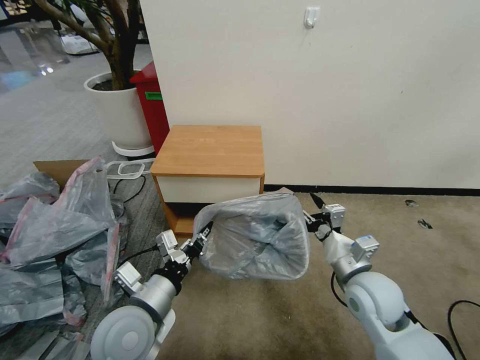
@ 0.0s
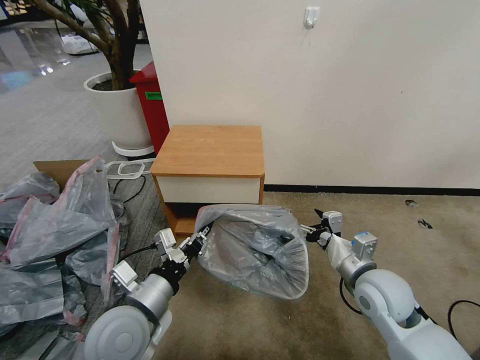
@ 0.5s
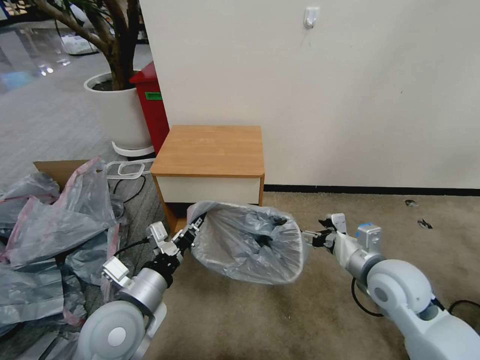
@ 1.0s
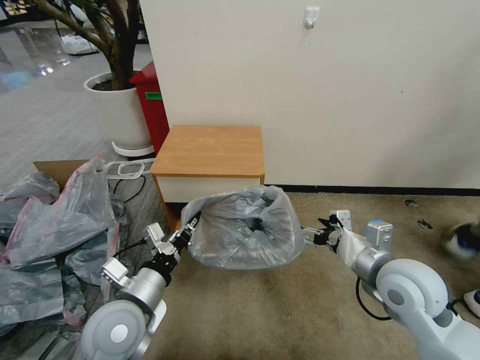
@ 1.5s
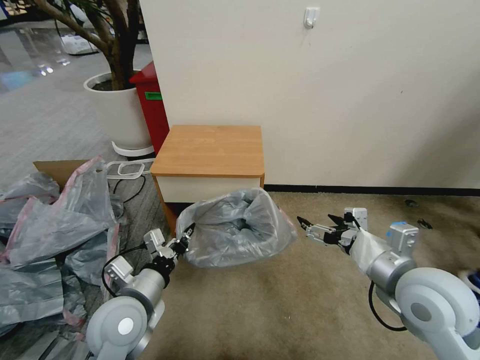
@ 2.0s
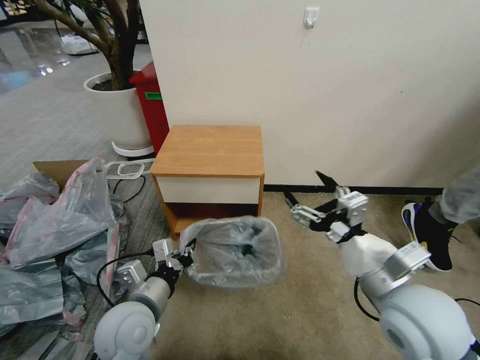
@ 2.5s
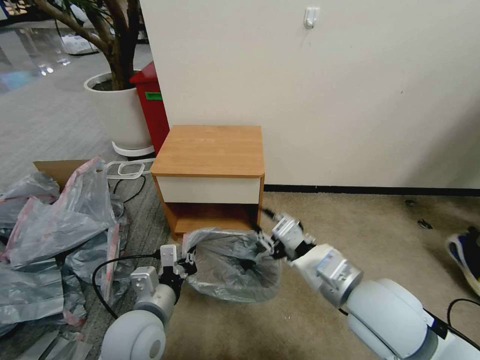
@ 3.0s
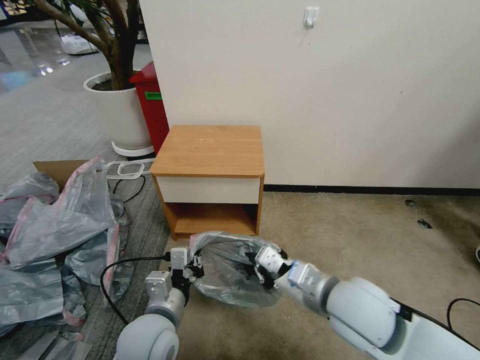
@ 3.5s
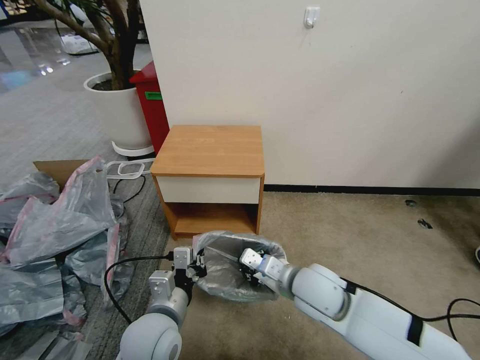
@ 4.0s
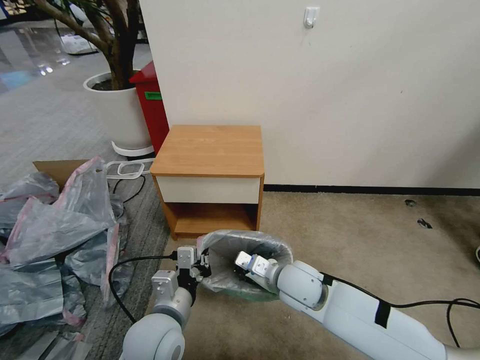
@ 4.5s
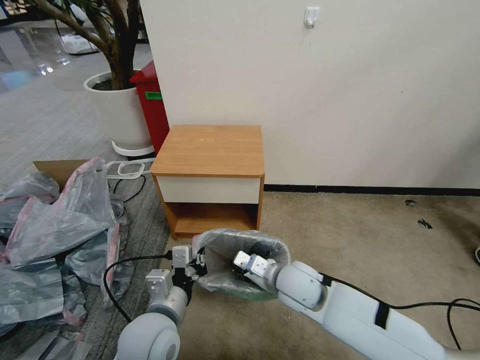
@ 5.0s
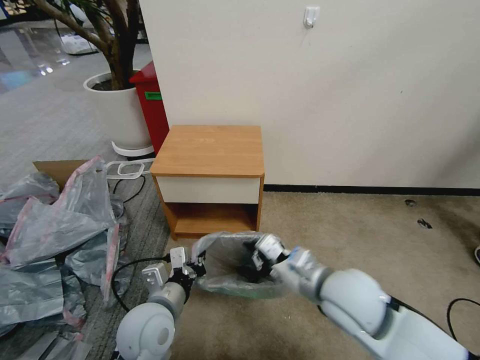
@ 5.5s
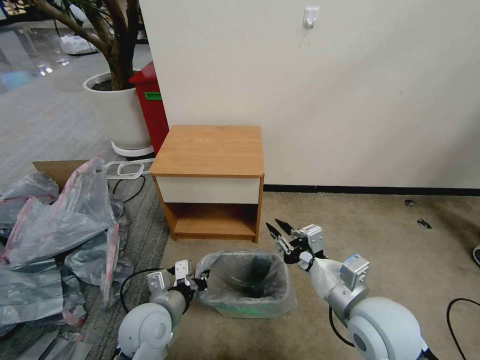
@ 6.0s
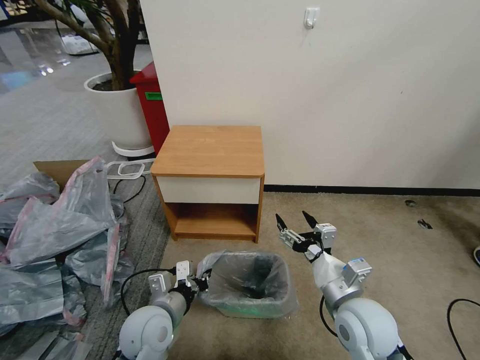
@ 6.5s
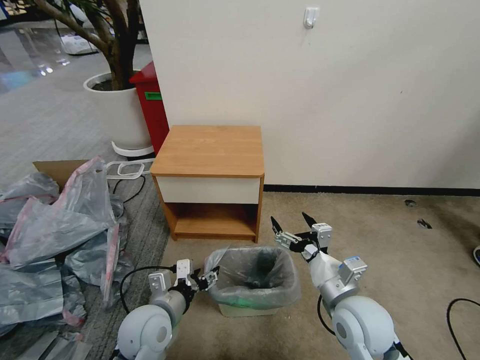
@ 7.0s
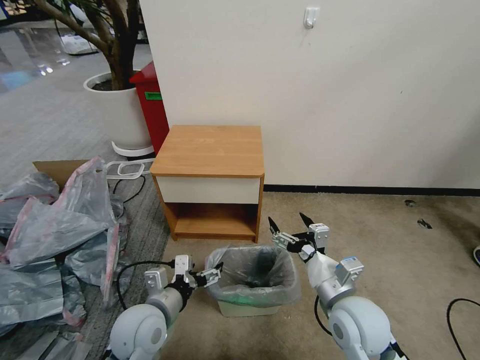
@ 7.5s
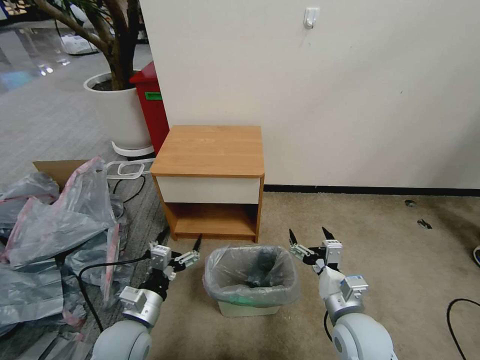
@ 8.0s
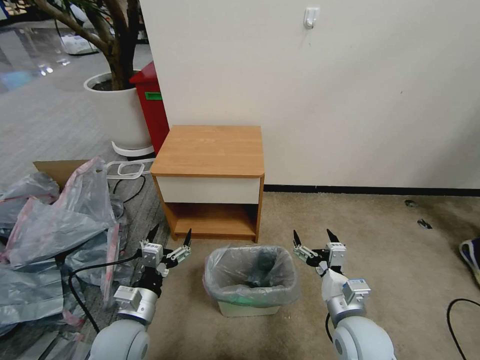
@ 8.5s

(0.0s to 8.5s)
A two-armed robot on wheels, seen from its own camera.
Task of the whole recording: Pick up the garbage bag from the table and place it over the trash can.
0.0s - 2.0s: The right gripper is displaced upward by roughly 10 cm.
2.0s - 4.0s: The right gripper heads to the left and downward, covering approximately 20 cm, and closes its fingers; the left gripper travels to the right by approximately 5 cm.
4.0s - 6.5s: The left gripper changes place by approximately 5 cm. Meanwhile the right gripper travels to the right and backward by approximately 10 cm, and opens its fingers.
6.5s - 8.5s: The right gripper moves downward, roughly 5 cm; the left gripper ends up about 5 cm from where it was, and opens up.

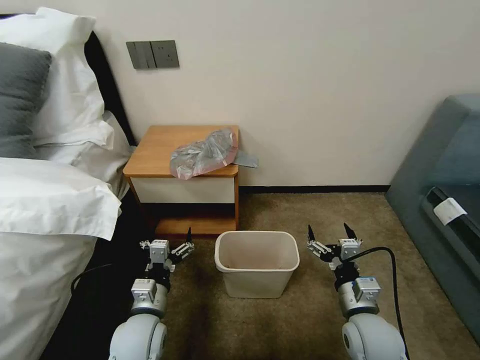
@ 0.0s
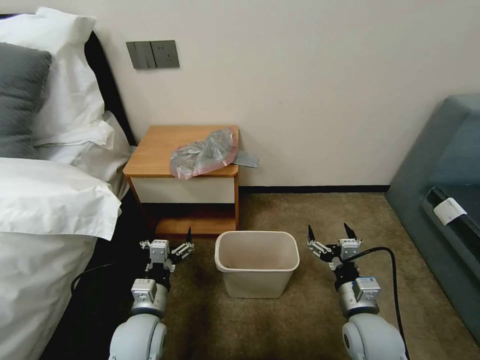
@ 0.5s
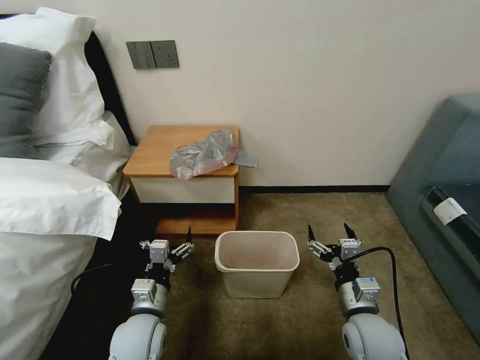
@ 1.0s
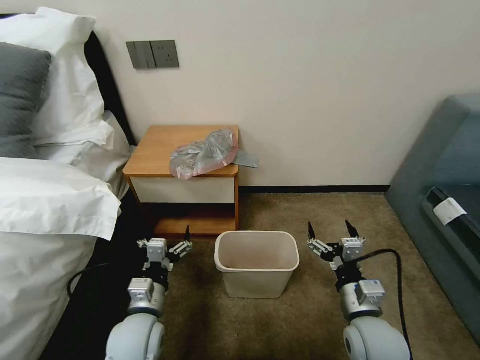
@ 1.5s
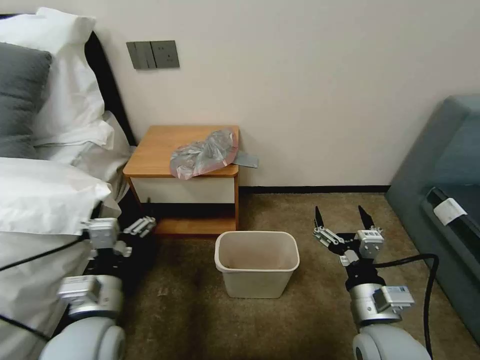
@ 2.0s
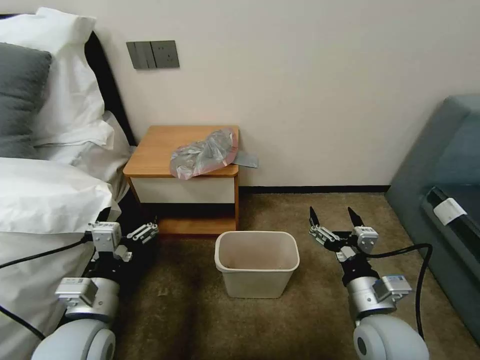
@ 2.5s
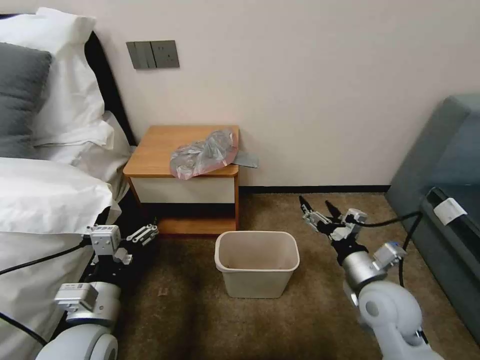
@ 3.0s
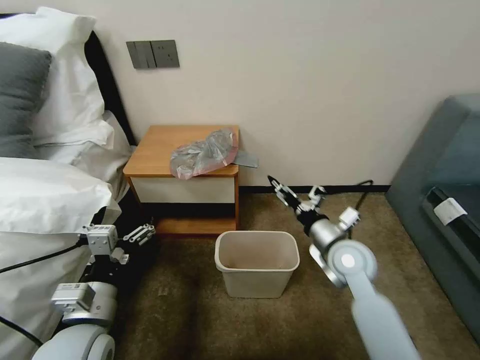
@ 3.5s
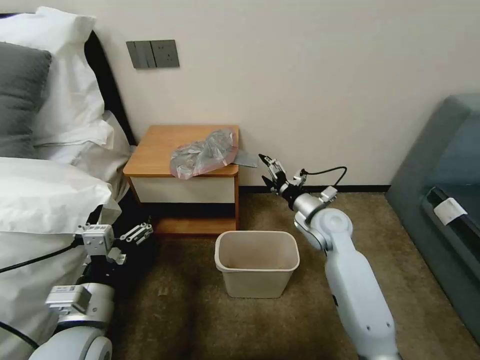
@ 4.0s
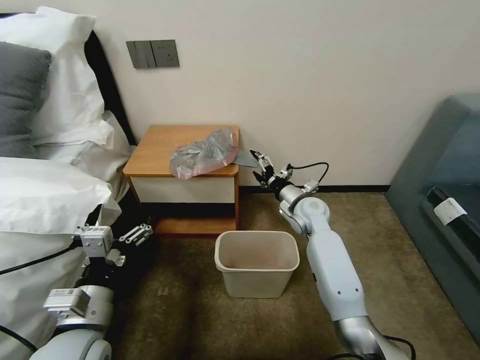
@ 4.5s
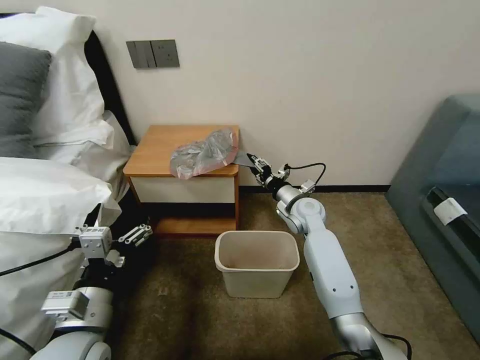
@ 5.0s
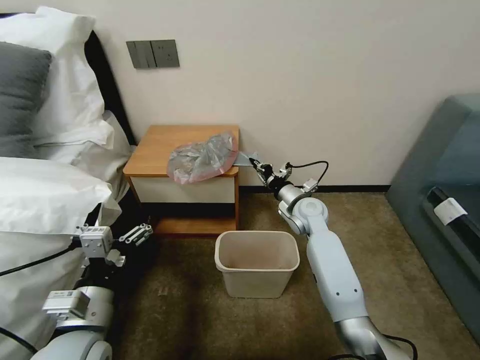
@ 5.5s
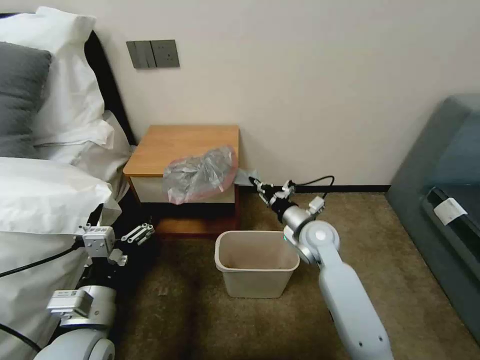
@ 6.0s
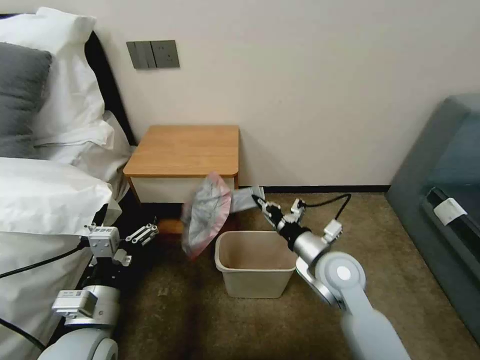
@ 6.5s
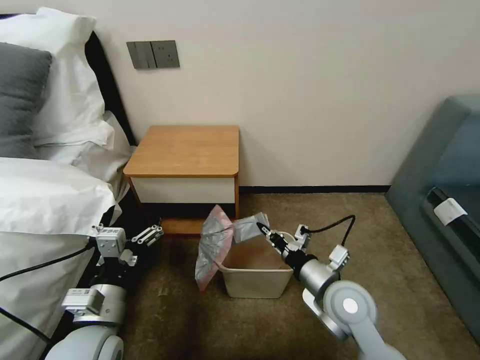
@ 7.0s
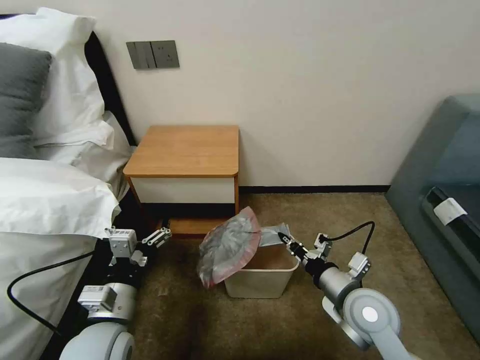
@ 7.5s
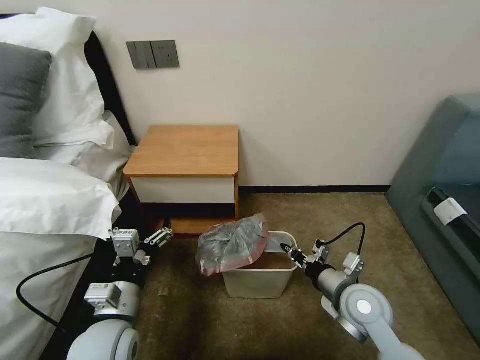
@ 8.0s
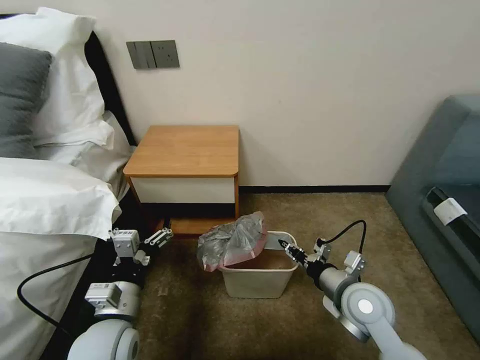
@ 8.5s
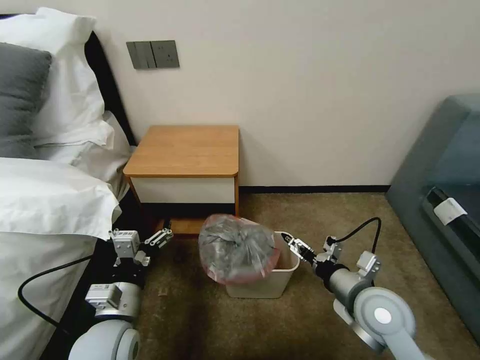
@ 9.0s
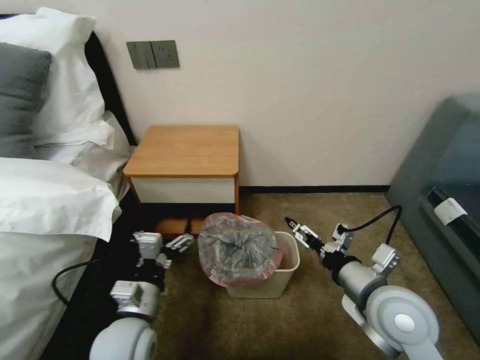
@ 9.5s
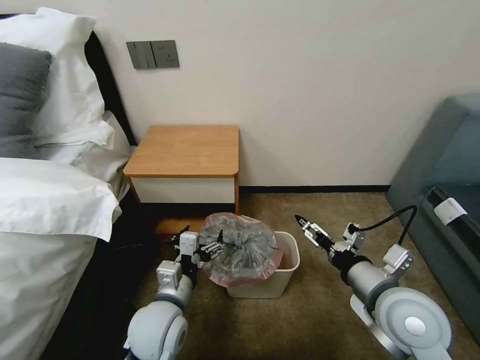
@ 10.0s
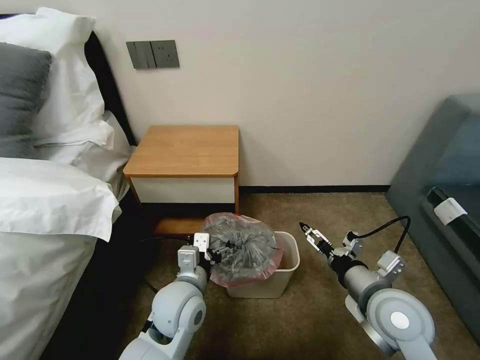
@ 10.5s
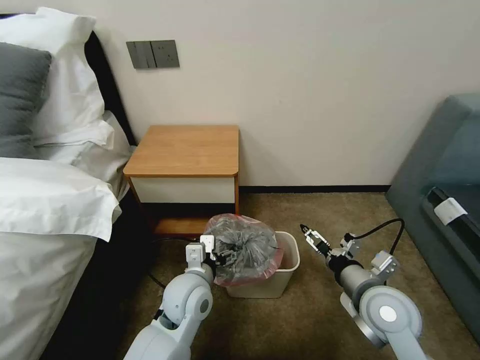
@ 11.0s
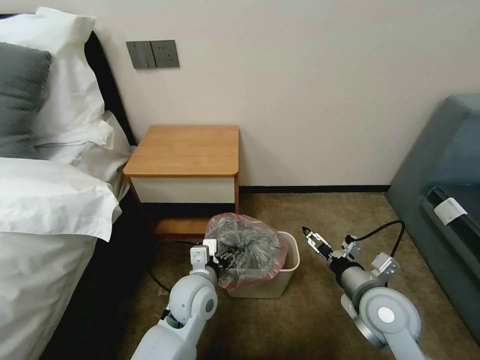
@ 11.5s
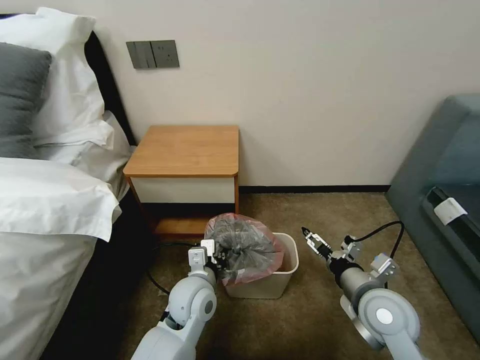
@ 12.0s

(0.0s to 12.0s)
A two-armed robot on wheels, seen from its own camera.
Task of the whole recording: Pick up the garbage bag from the table and place it over the trash can.
2.0s - 4.0s: The right gripper goes roughly 25 cm forward.
4.0s - 6.0s: The right gripper moves roughly 5 cm forward and comes back, and closes.
6.0s - 8.0s: The left gripper changes place by some 5 cm, while the right gripper goes approximately 15 cm backward and to the right.
8.0s - 10.0s: The right gripper travels upward by some 10 cm, and opens its fingers. Meanwhile the left gripper moves to the right, approximately 10 cm.
10.0s - 12.0s: The left gripper moves forward, roughly 5 cm, and closes up. The right gripper shifts approximately 5 cm downward.

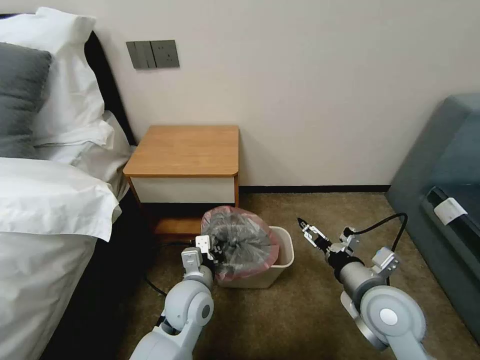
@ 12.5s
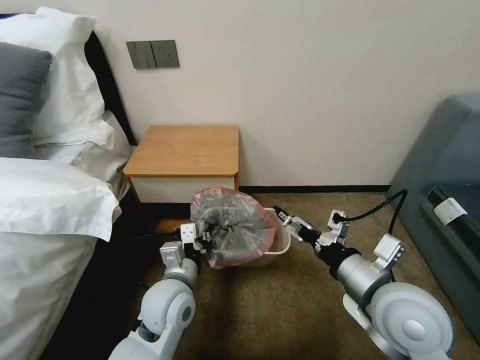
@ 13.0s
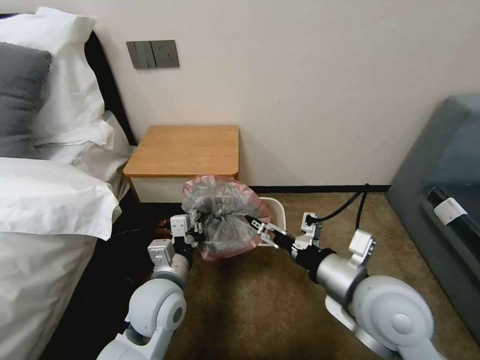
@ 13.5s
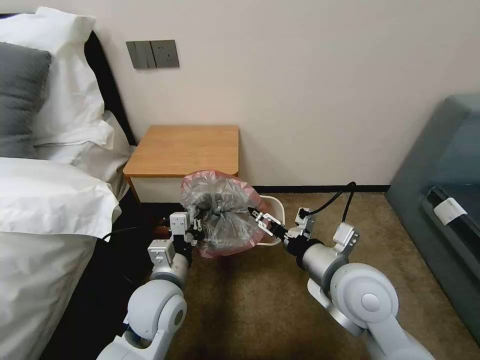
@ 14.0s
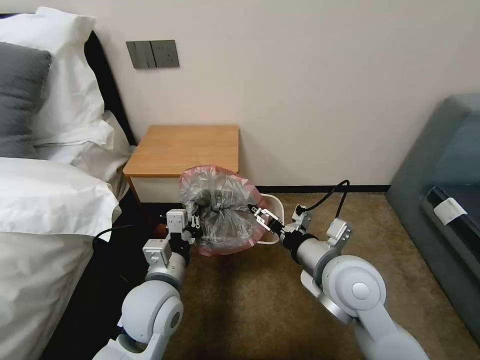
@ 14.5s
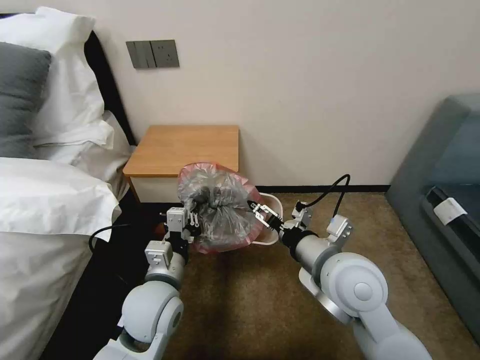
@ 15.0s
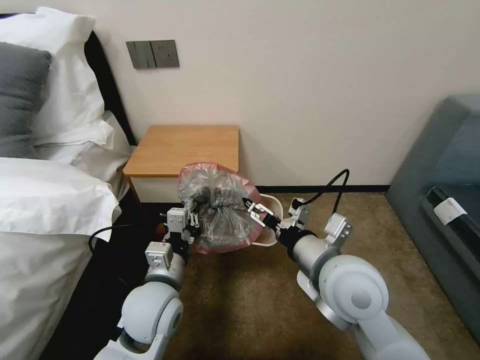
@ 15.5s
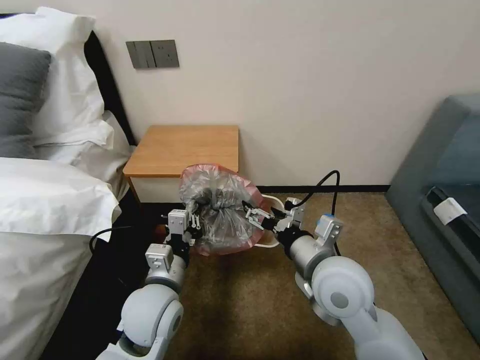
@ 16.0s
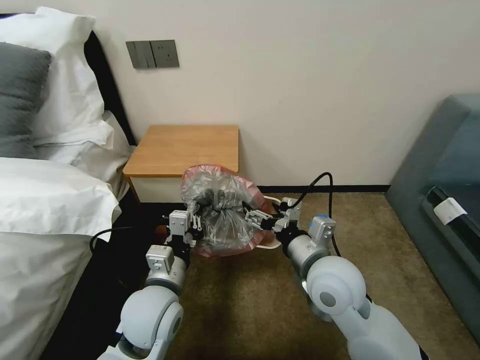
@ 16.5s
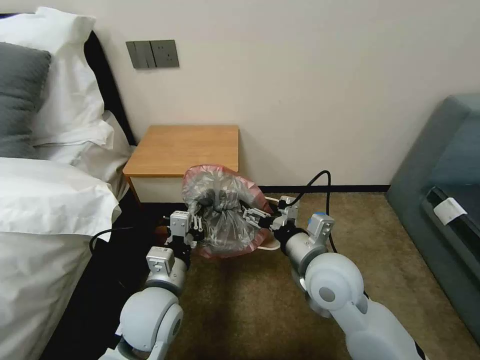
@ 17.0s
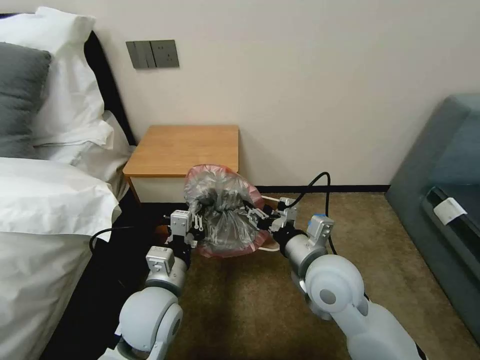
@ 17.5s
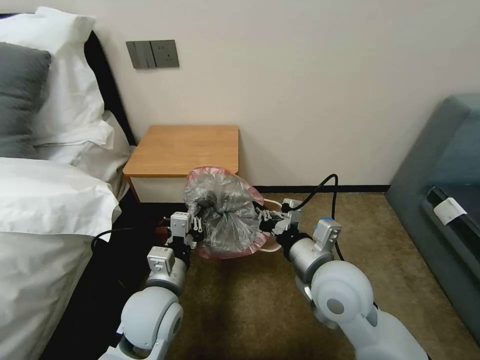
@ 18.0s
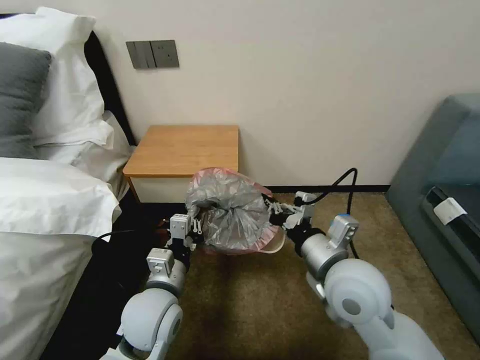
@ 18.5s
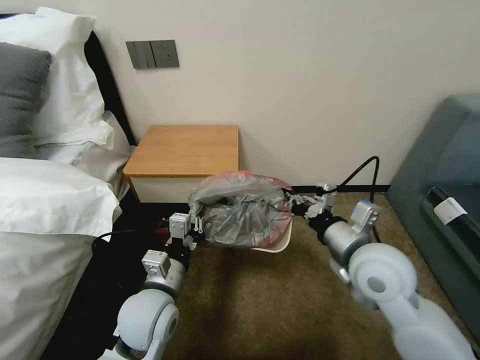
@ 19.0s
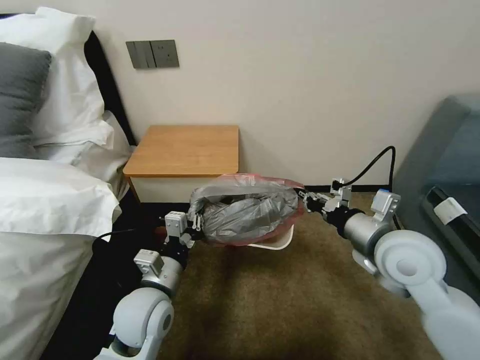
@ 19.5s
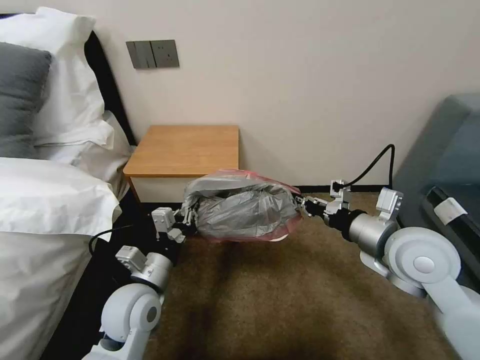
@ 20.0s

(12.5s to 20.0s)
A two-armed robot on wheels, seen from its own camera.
Task of the whole recording: Pick up the garbage bag from the table and place it over the trash can.
12.5s - 14.5s: The right gripper goes some 10 cm to the left and upward. The left gripper shifts approximately 5 cm upward.
16.5s - 18.0s: The right gripper closes up.
18.0s - 20.0s: The right gripper is displaced to the right and upward by some 15 cm.
